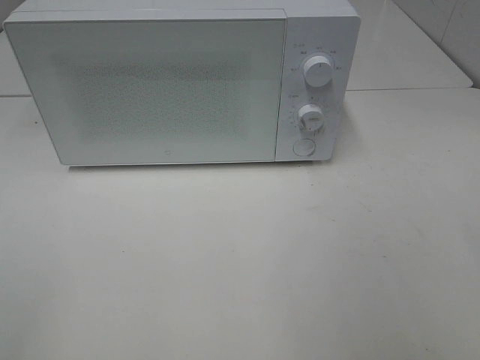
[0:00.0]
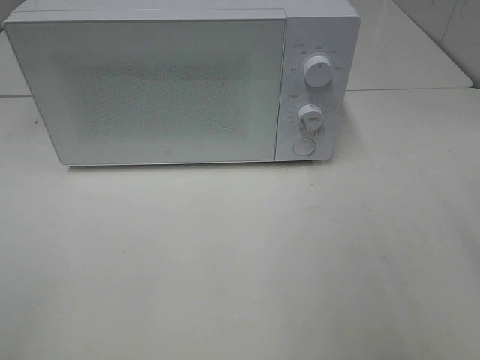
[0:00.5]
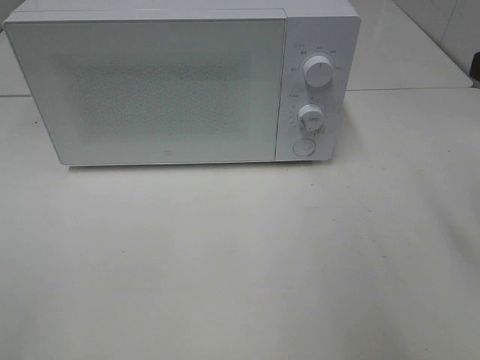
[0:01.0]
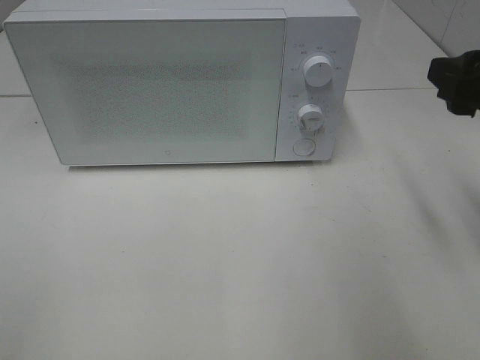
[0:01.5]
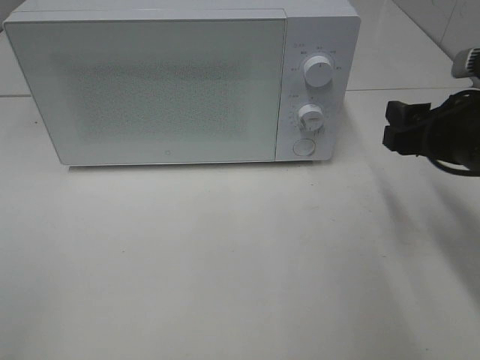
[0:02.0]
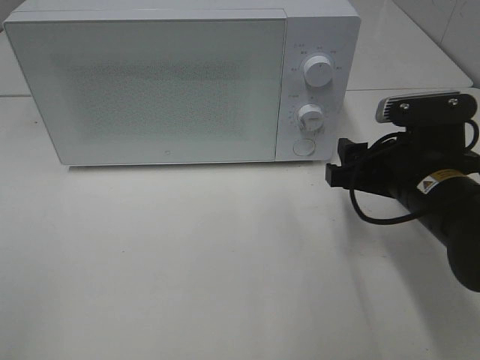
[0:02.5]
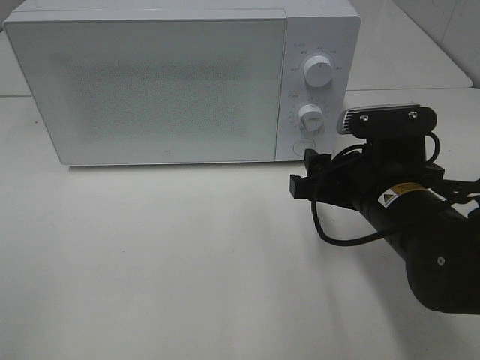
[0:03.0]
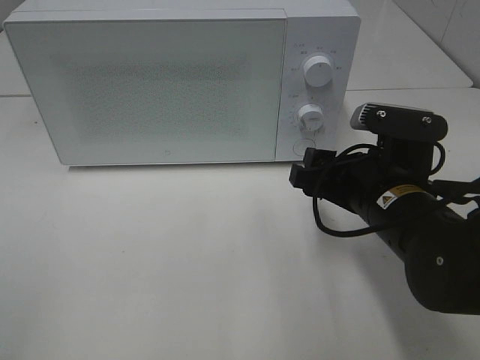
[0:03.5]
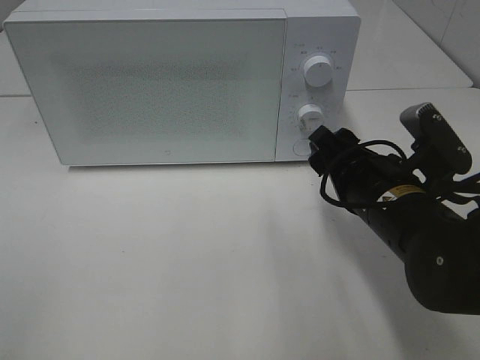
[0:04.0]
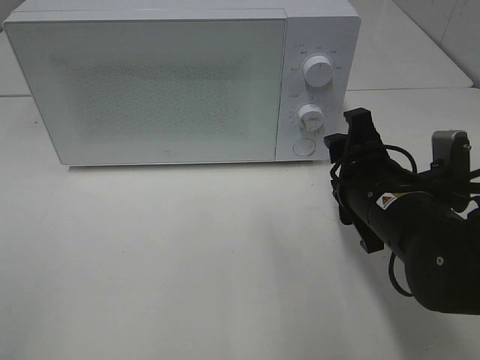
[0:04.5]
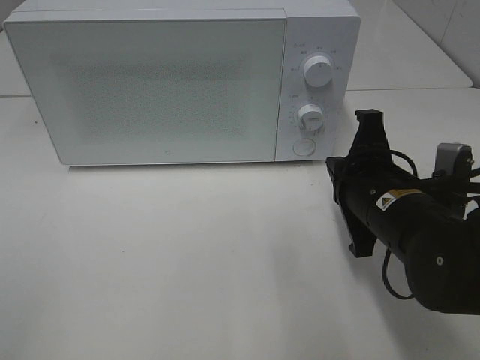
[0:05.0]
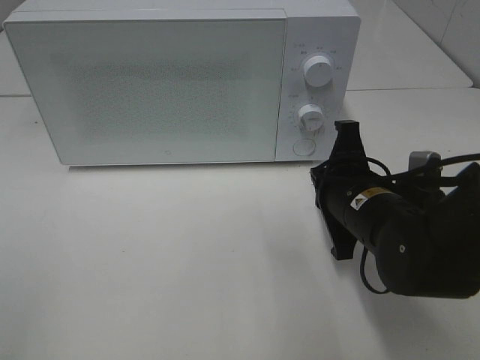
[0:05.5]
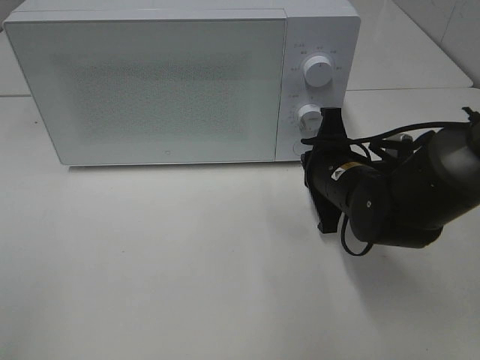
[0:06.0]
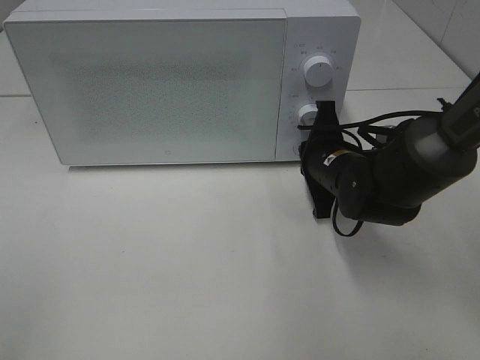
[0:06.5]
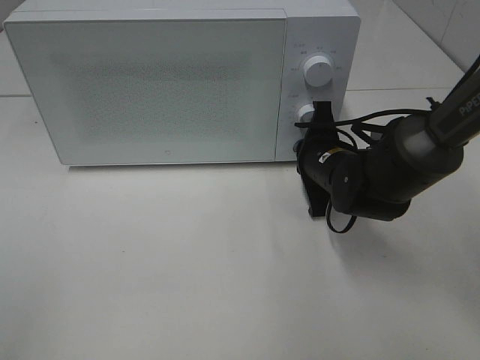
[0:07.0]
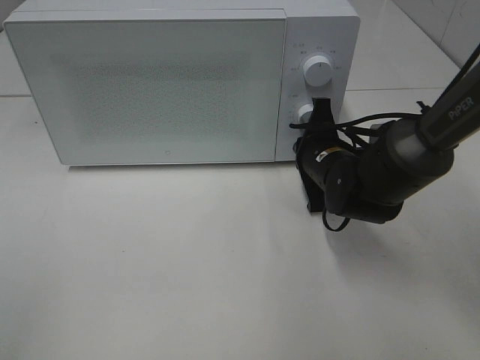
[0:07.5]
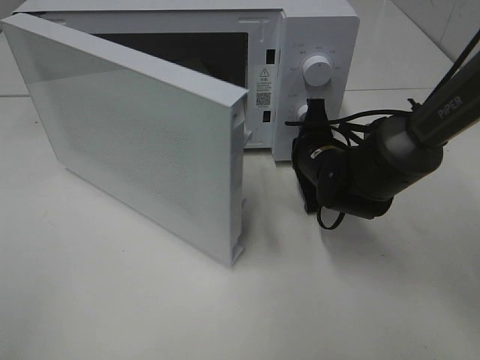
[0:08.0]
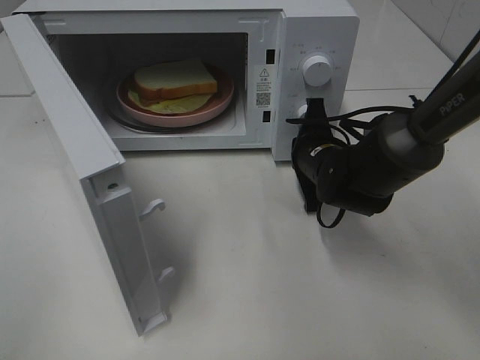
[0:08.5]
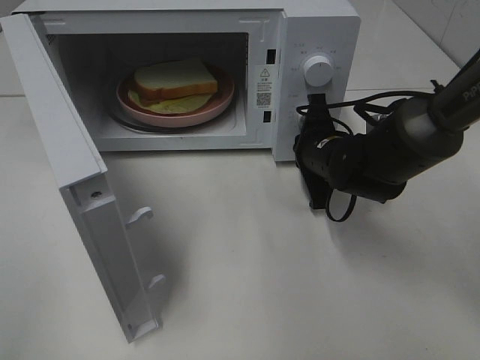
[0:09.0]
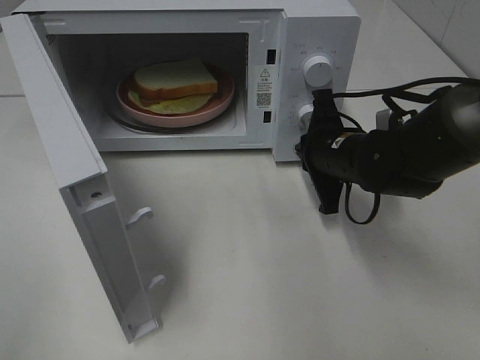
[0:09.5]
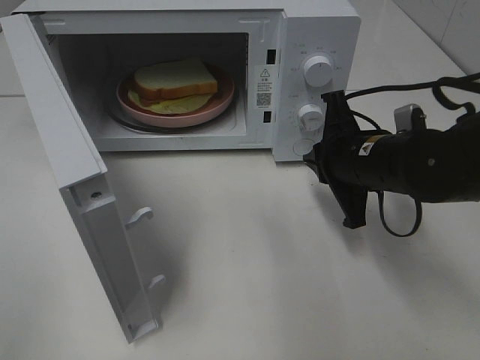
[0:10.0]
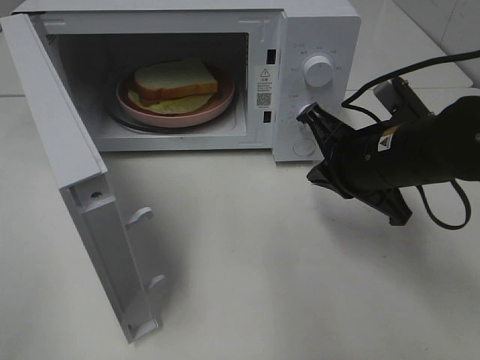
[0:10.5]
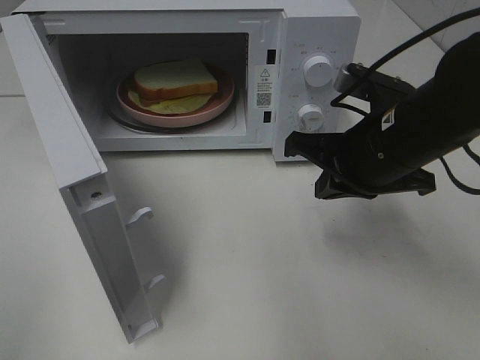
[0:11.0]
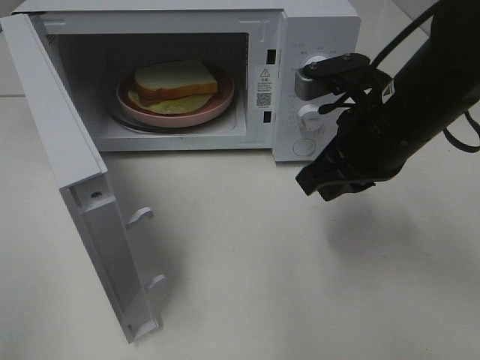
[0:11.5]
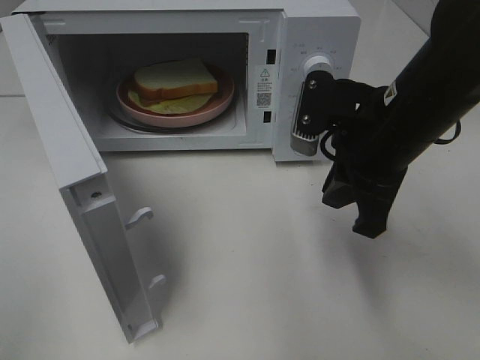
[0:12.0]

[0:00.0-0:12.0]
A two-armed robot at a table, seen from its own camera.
Task of the whole recording: Heat Sandwich.
Step, 0:00.0 to 0:09.5: Right hand: press the switch.
0:00.0 to 0:02.0: The right gripper goes roughly 20 cm forward and downward.
0:02.0 to 0:04.0: The right gripper travels to the left and downward by roughly 10 cm.
0:04.0 to 0:06.0: The right gripper heads forward, covering roughly 10 cm, and closes up.
0:06.0 to 0:08.0: The right gripper shifts roughly 5 cm forward.
0:08.0 to 0:10.0: The right gripper shifts some 10 cm backward and upward.
0:10.0 to 0:12.0: The right gripper moves upward, approximately 5 cm.

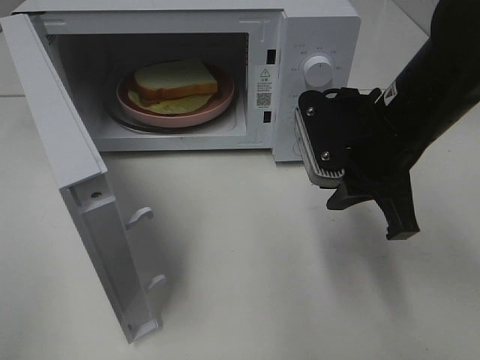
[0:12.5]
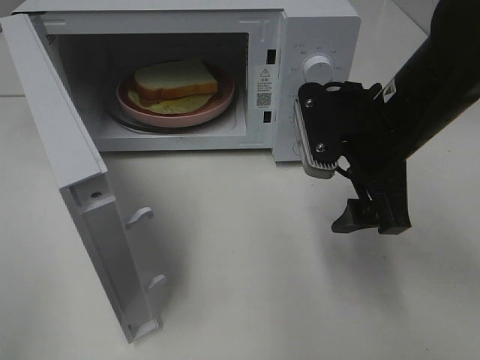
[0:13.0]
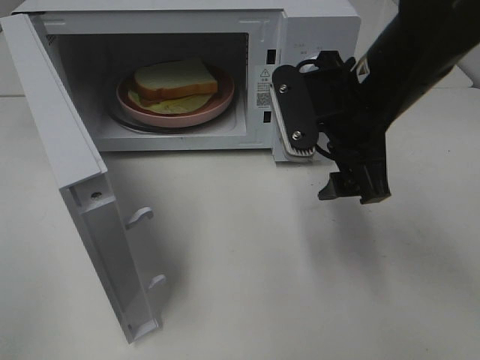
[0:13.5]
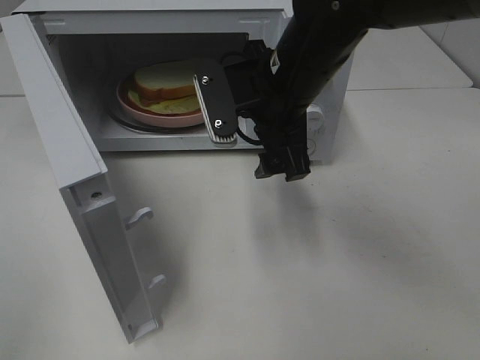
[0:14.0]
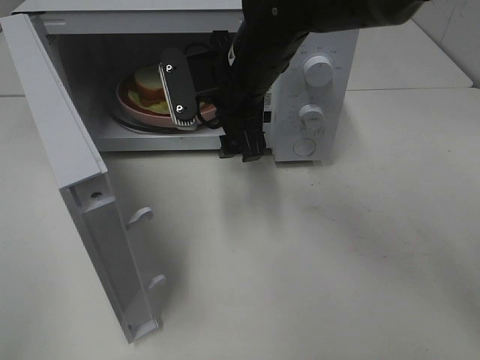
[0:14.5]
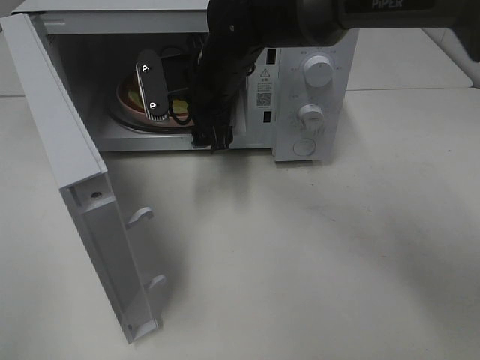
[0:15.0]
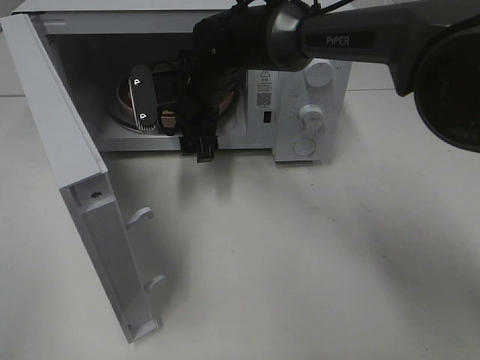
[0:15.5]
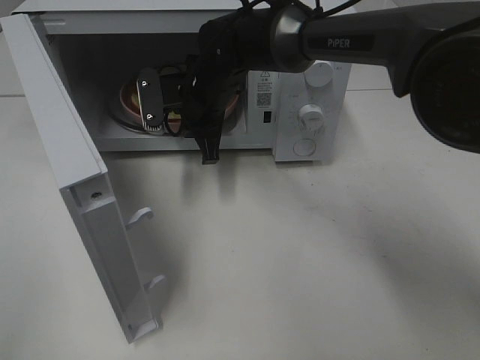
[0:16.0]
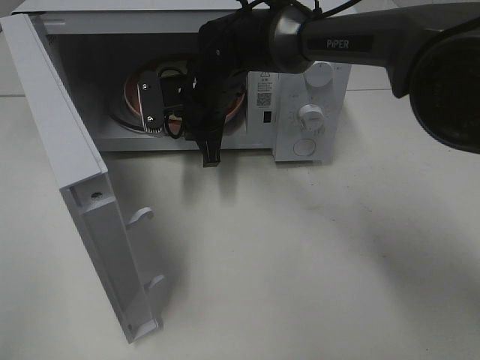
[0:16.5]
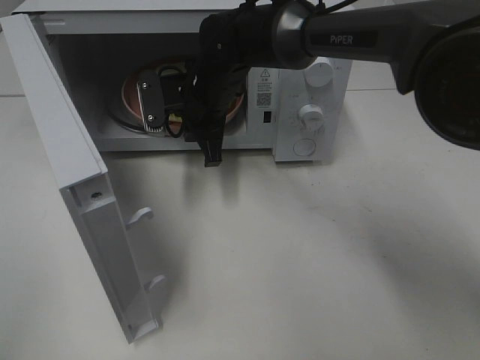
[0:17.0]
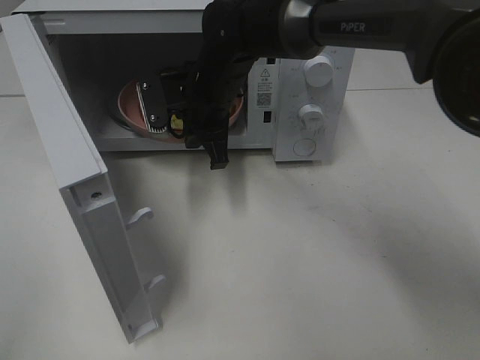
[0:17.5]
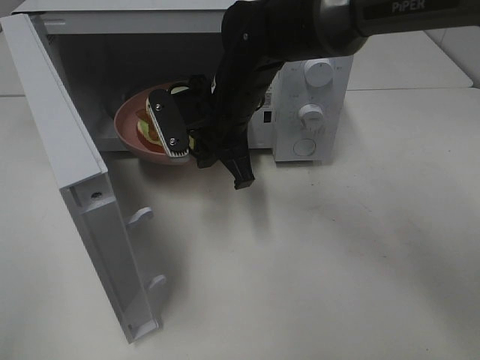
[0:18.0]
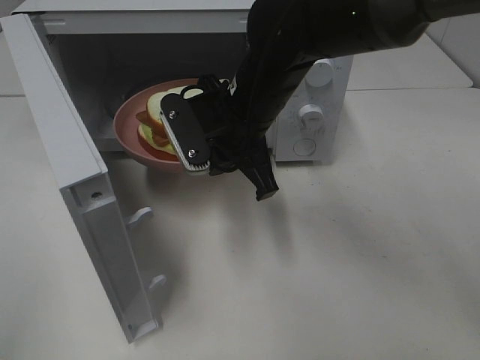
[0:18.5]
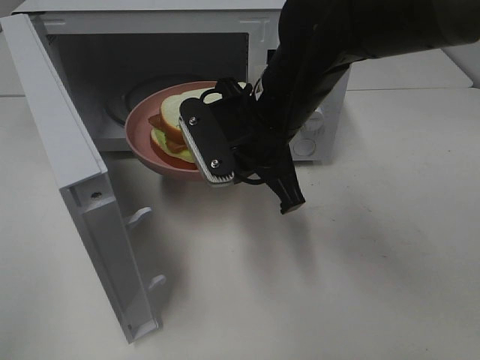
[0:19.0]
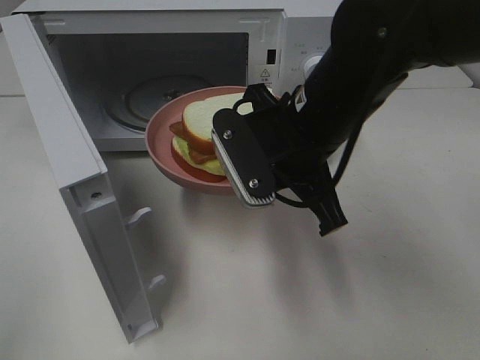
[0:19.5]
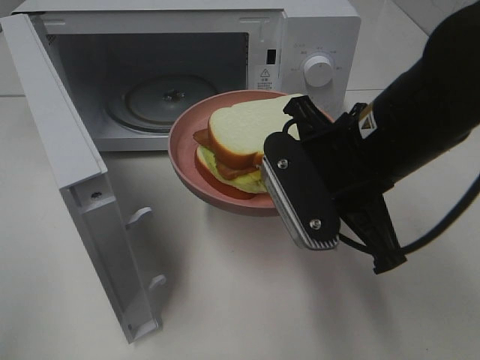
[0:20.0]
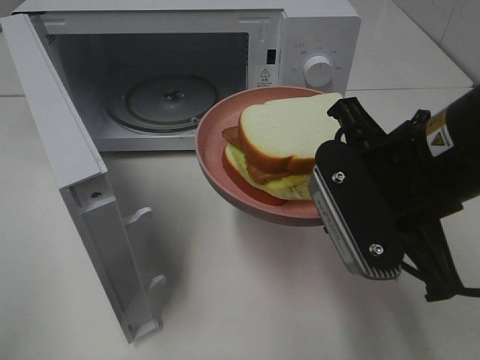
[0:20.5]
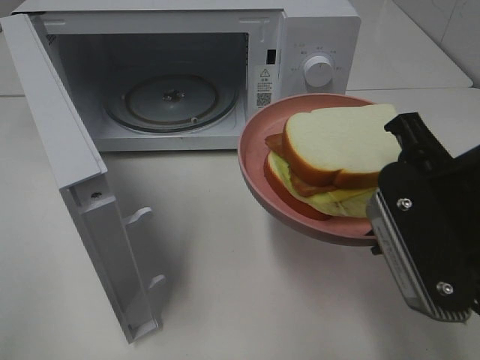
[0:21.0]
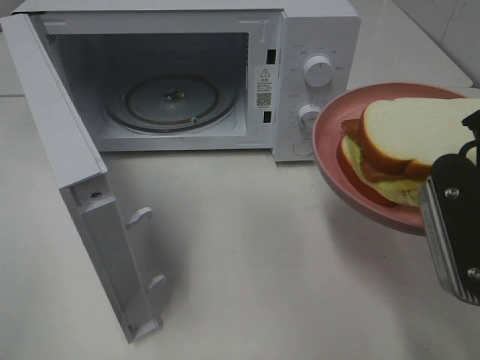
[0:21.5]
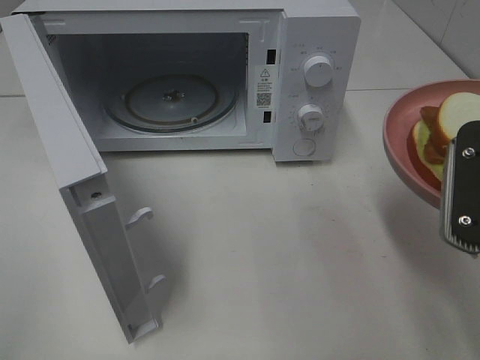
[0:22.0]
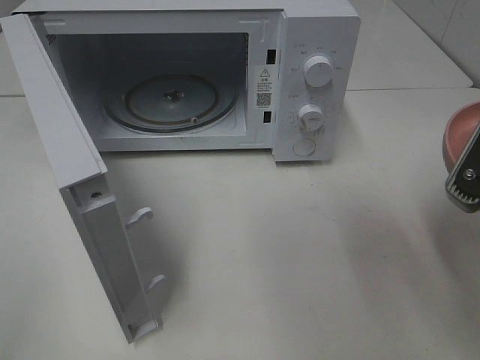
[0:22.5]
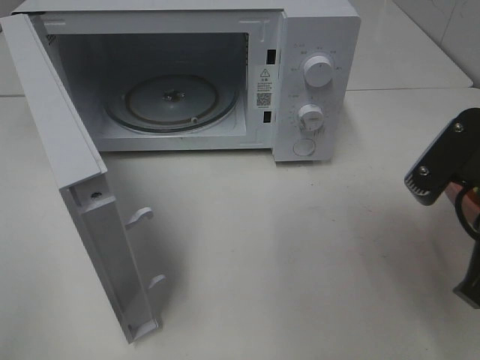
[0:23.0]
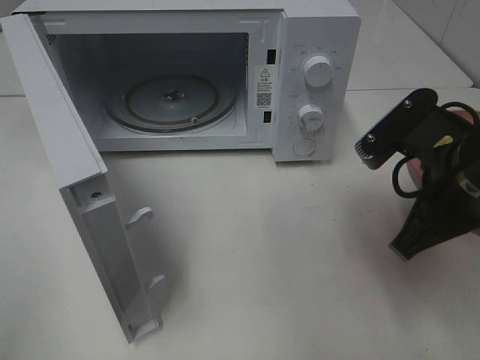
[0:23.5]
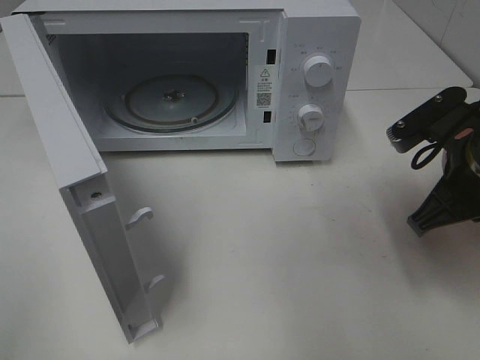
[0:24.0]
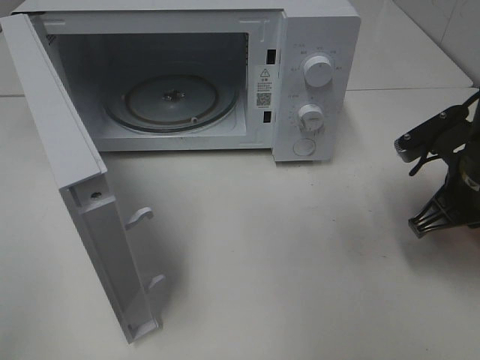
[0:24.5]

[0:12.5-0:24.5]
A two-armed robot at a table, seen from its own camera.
Task of the whole recording: Heat Sandwich.
Step, 0:12.5 to 0:16.0: Right hand: grab the plate with the sandwich.
0:12.5 to 0:14.5: The right gripper is displaced to the left and forward by roughly 15 cm, and opens.
0:14.5 to 0:16.5: The right gripper is displaced forward and downward by about 10 cm, and closes up.
0:16.5 to 0:18.5: The right gripper moves backward, roughly 10 cm.
0:18.5 to 0:20.5: The right gripper is displaced backward and to the right by approximately 20 cm.
0:20.5 to 0:22.5: The right gripper goes about 10 cm to the right.
0:22.5 to 0:24.5: The right gripper goes approximately 15 cm forward and downward.

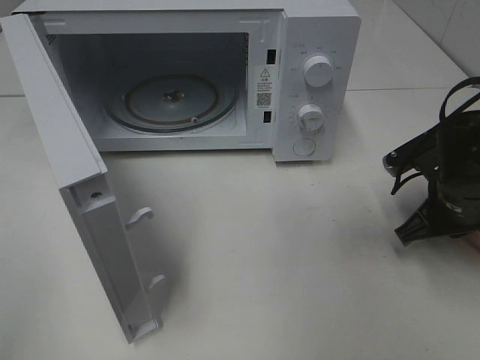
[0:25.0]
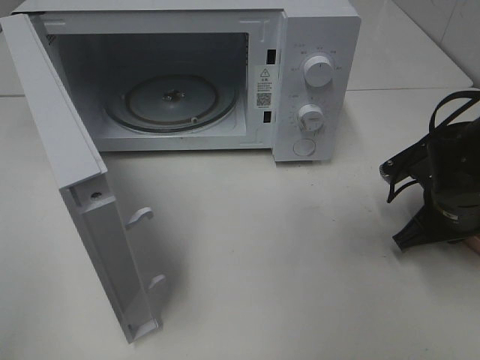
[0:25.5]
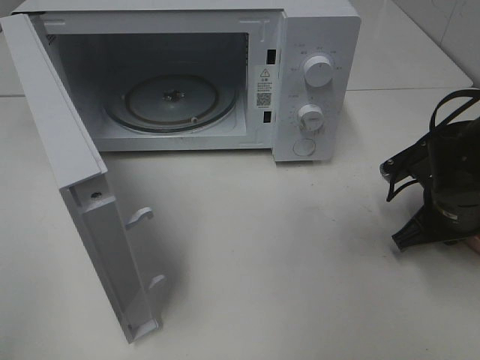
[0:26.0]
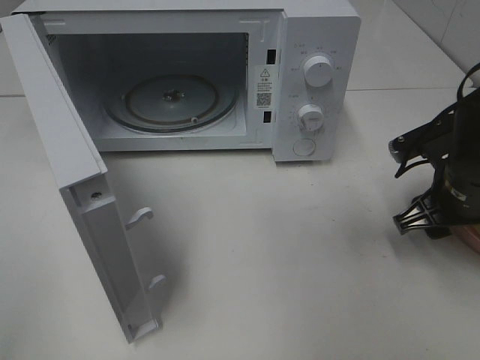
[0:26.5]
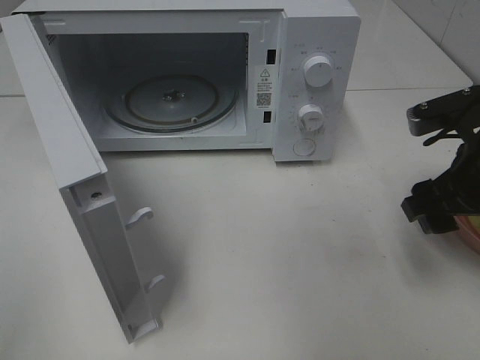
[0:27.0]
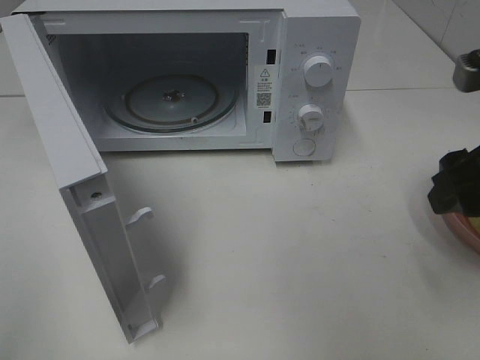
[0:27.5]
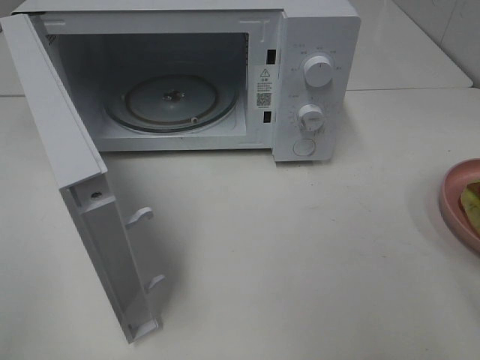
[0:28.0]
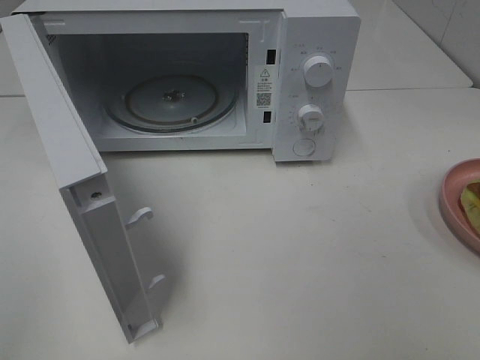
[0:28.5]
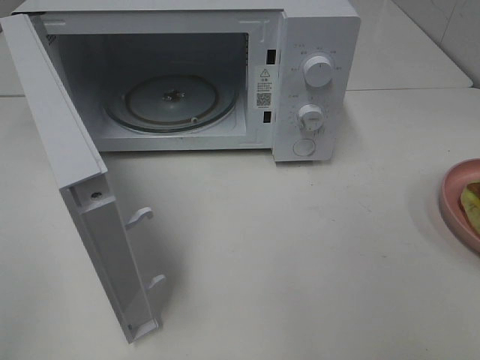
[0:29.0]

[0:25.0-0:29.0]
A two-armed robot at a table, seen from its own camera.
Task of the whole recording: Heat Sandwich.
Step, 0:25.0 to 0:27.5: Right hand: place the plate on the table.
0:25.0 to 0:27.0: The right gripper travels upward by some 10 cm, and opens its fingers.
0:27.0 to 0:29.0: The right gripper shifts some 25 cm backward.
